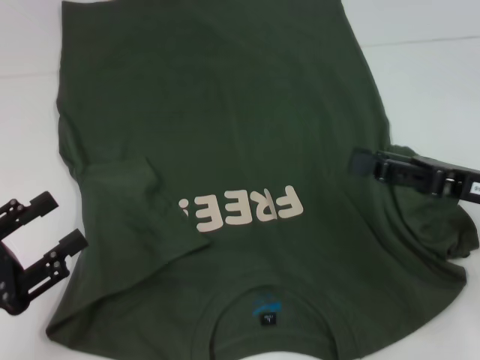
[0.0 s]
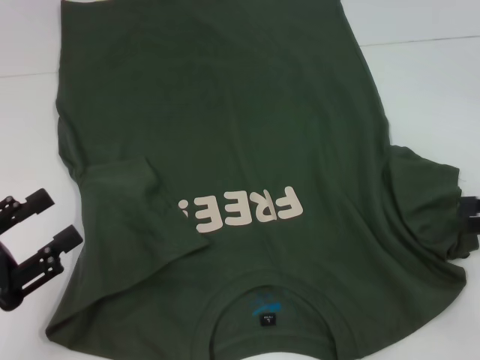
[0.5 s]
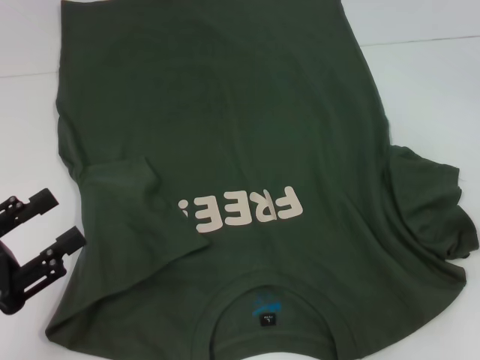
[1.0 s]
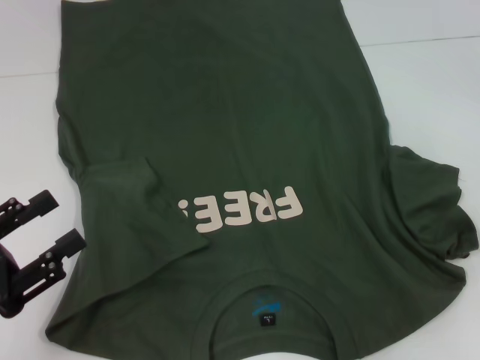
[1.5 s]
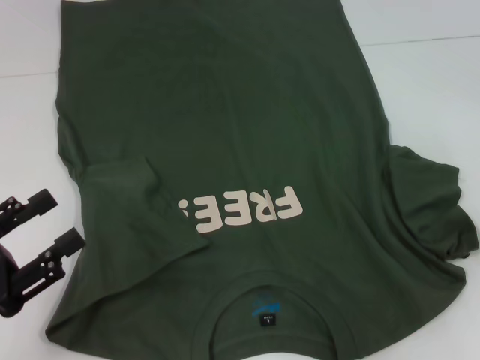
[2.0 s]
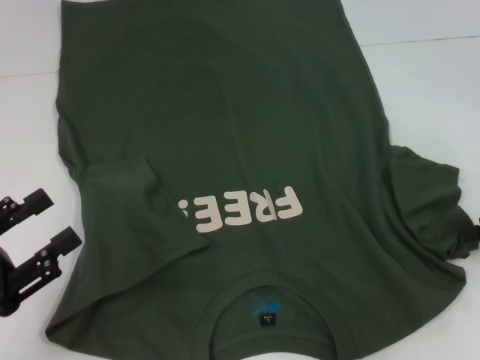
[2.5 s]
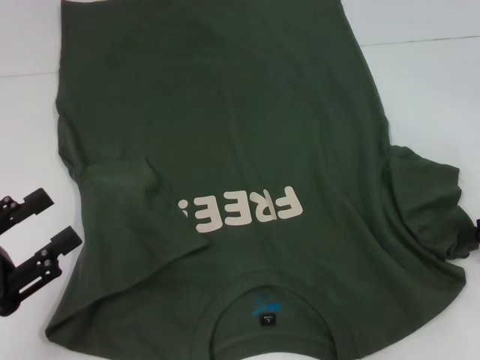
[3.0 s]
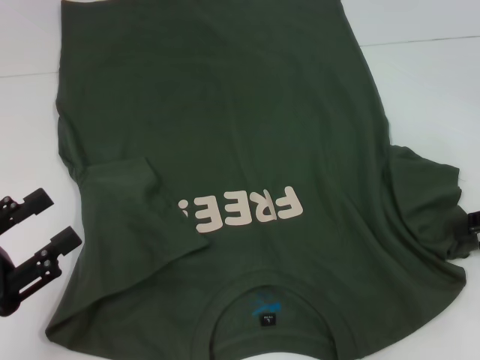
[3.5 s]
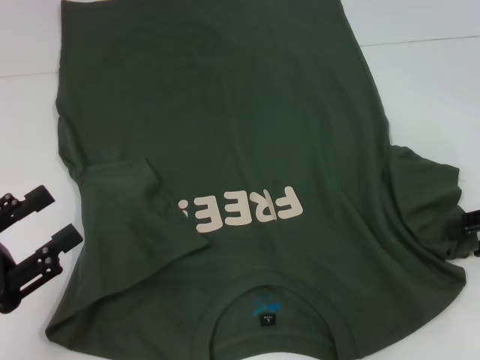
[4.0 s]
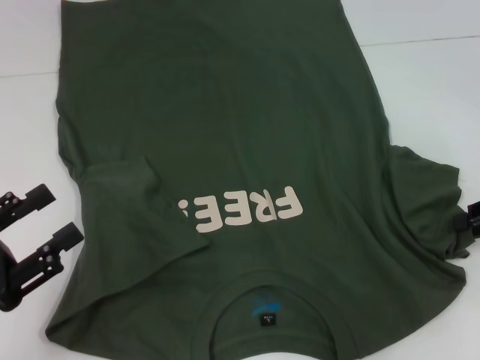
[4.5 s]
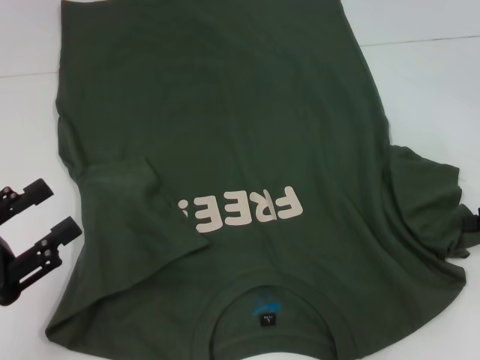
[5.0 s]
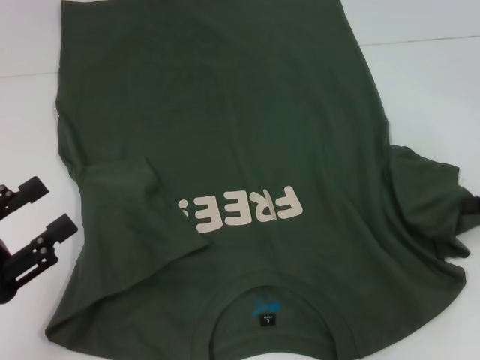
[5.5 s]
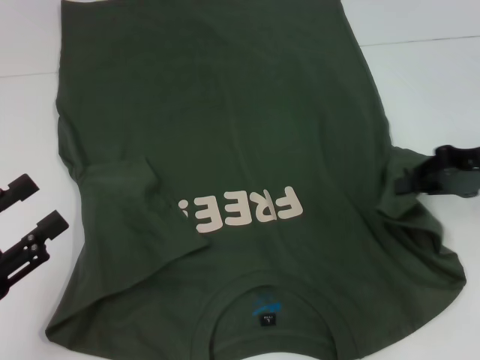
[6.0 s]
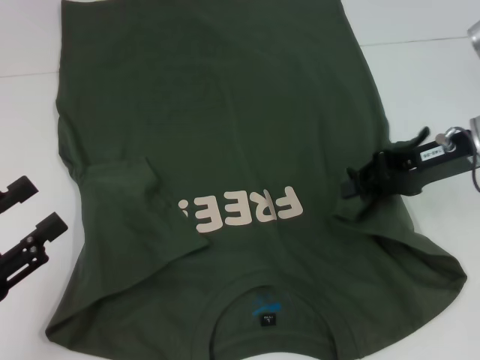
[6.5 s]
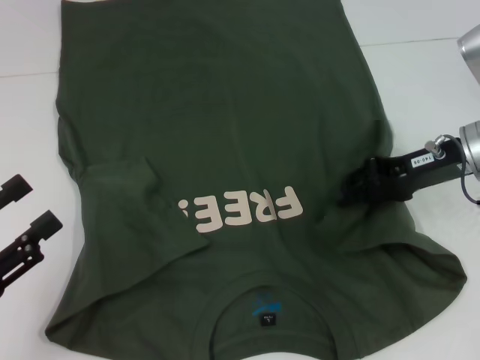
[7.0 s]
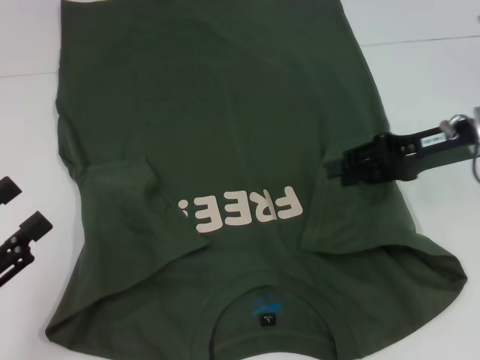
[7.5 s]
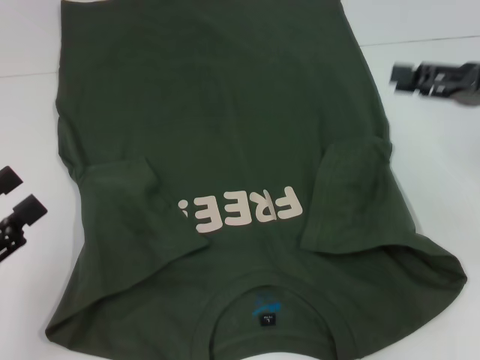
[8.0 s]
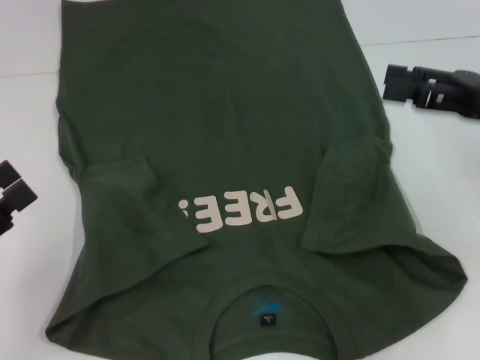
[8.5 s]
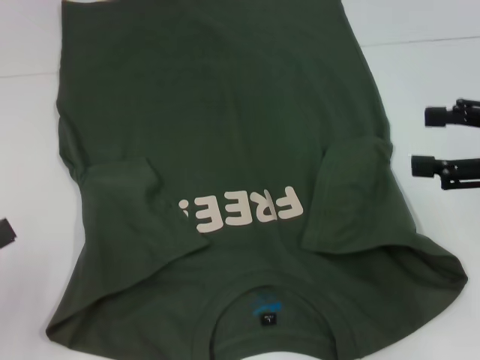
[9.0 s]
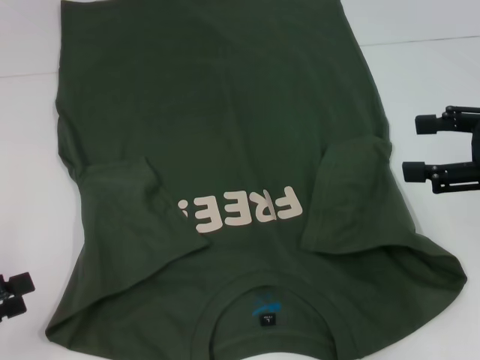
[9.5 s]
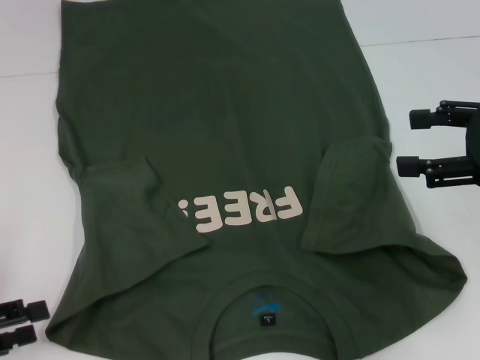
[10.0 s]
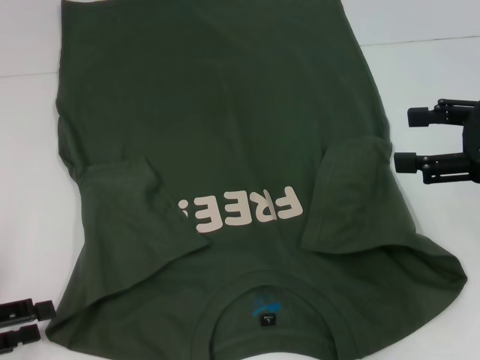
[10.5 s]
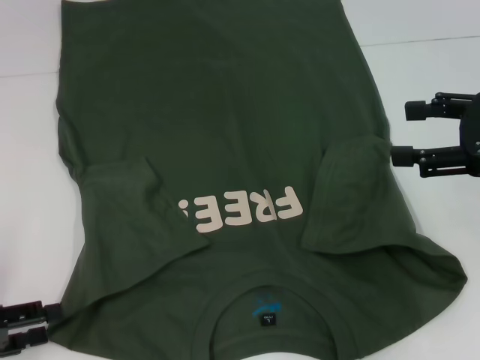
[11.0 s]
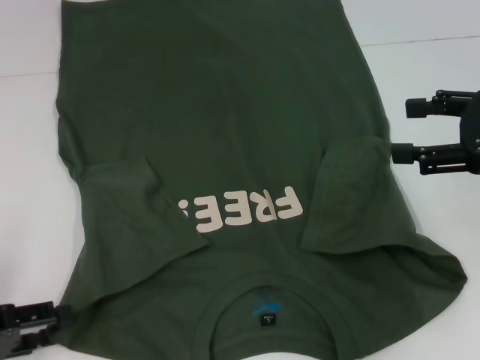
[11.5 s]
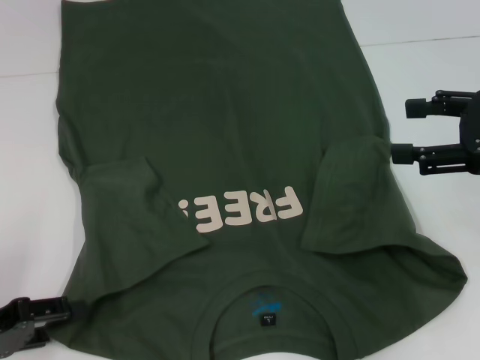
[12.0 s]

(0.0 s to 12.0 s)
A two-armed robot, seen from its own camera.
Step, 0.0 s - 7.5 s: Fold the bottom right sleeve with your right hand.
0.0 s - 2.0 s: The right gripper shifts roughly 10 cm to the right.
2.0 s - 4.0 s: The grippers make only small movements.
4.0 s - 6.0 s: The right gripper heads to the left, covering about 5 cm, and closes up.
6.0 s - 8.0 s: The right gripper opens up.
8.0 s - 10.0 s: The right gripper goes some 5 cm backward, and opens up.
10.0 s - 12.0 s: There are only small adjustments of the grippers.

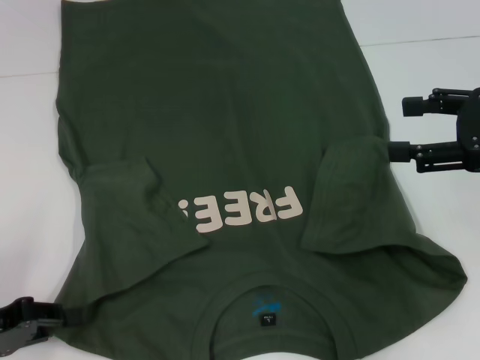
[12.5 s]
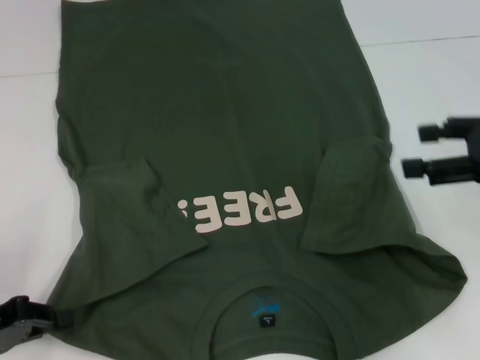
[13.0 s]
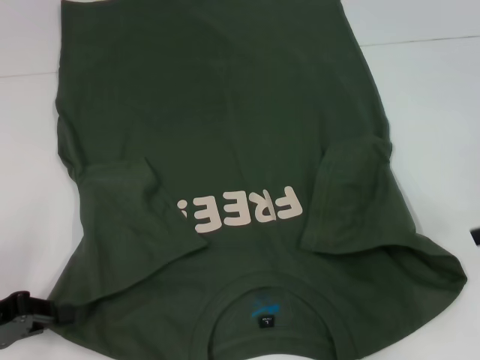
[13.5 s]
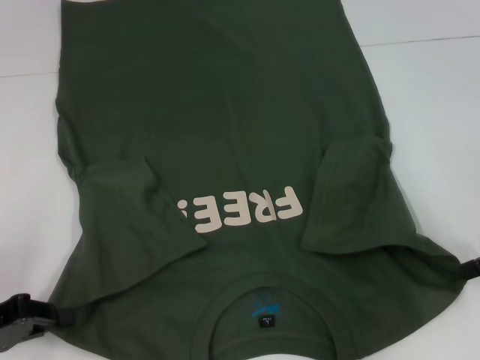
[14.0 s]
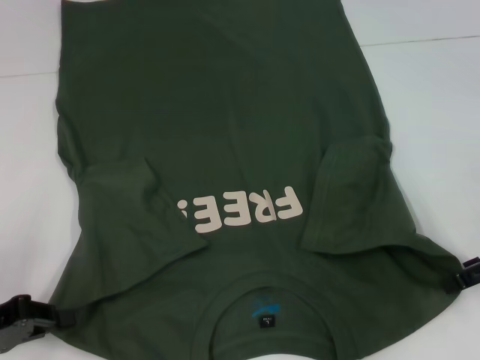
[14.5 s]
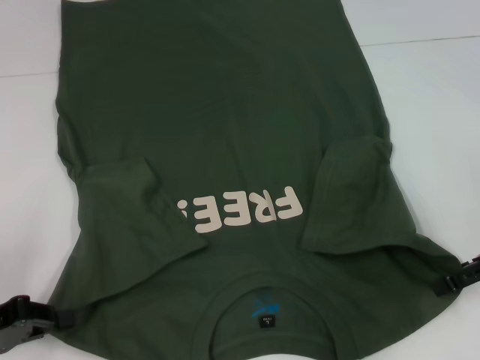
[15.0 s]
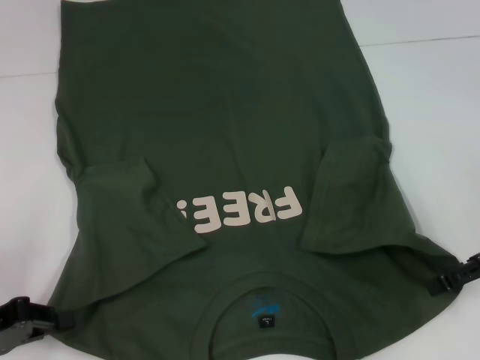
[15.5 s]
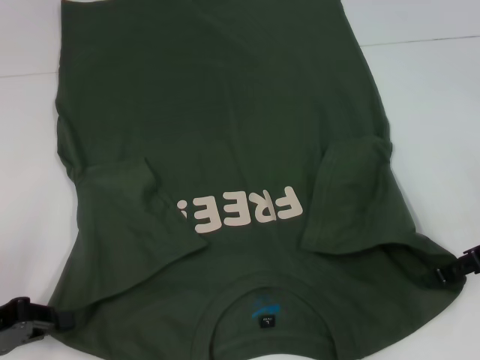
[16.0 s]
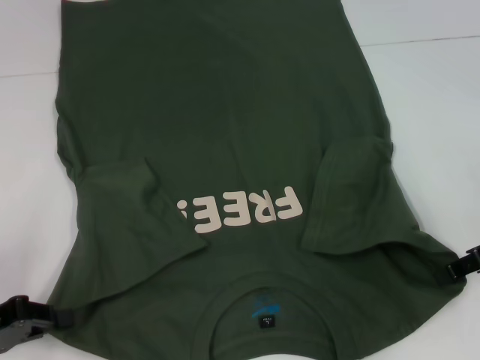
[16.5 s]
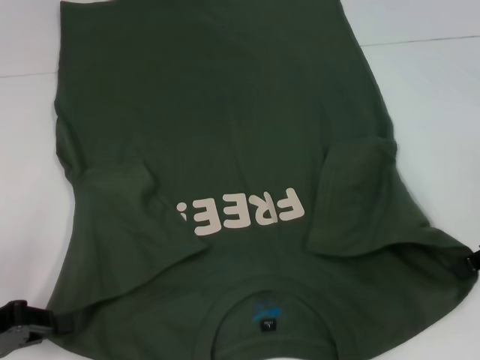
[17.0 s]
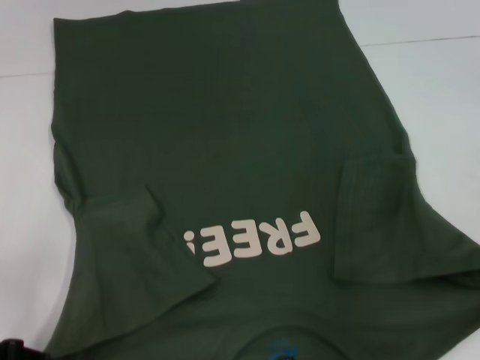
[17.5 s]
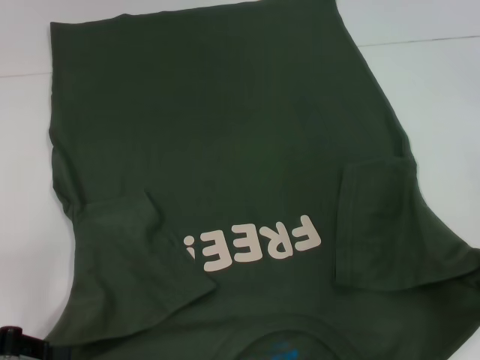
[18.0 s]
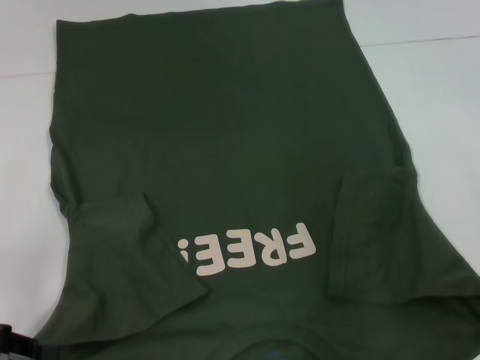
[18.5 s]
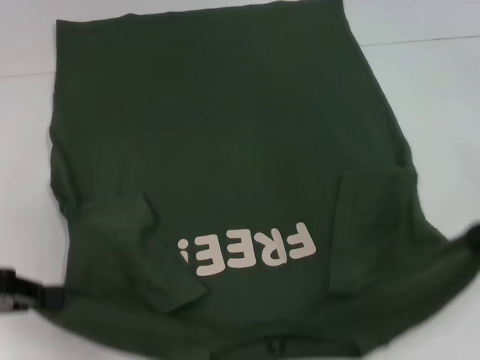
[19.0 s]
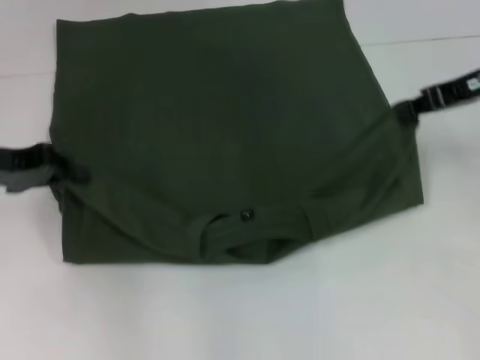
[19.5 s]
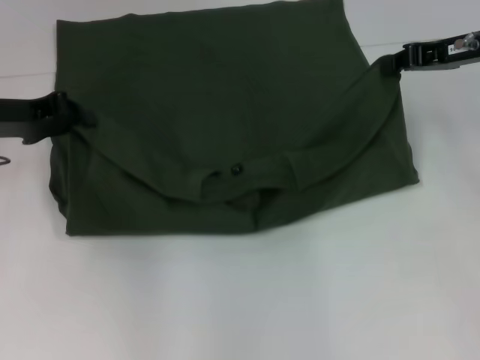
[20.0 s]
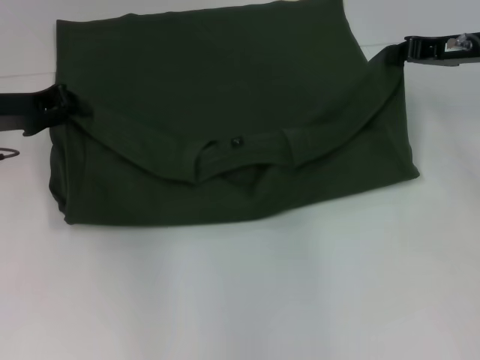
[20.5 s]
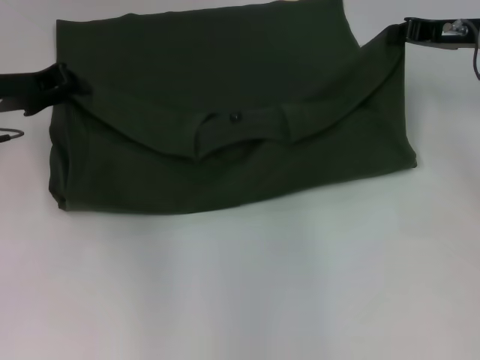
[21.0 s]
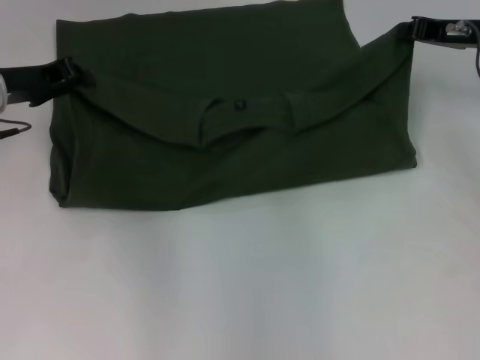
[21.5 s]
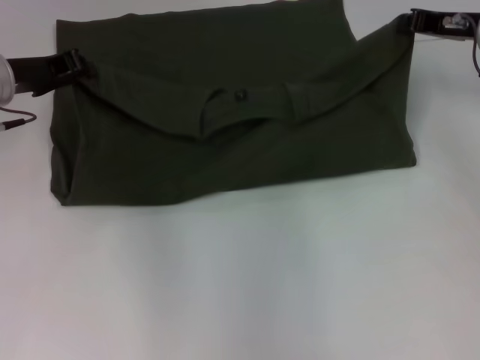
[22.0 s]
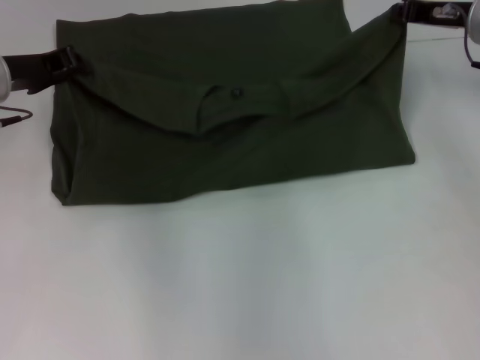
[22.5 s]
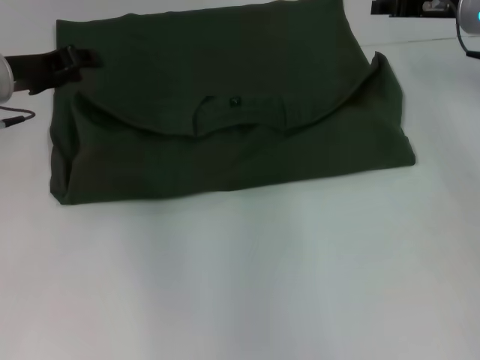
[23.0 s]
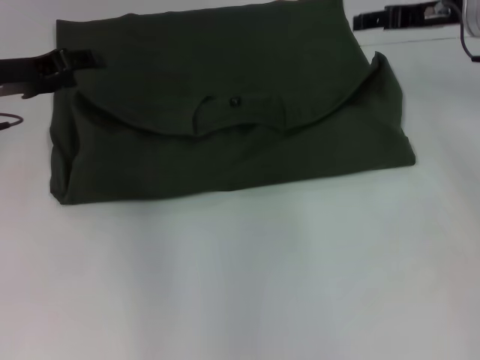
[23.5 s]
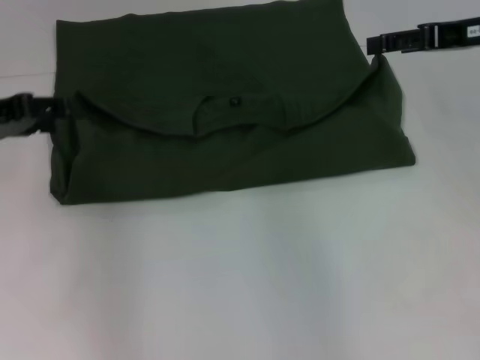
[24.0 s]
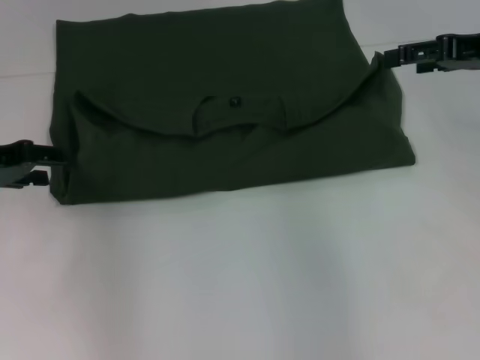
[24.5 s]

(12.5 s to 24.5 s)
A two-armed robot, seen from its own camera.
Step, 13.0 s - 16.5 s: Grab the bottom right corner with your right hand.
Step, 17.0 s - 23.0 s: Fold the clothes with your left hand.
Step, 17.0 s - 23.0 s: Fold the clothes with your right hand.
12.5 s - 14.5 s: The right gripper moves downward, some 5 cm. Meanwhile the left gripper closes its fingers.
14.5 s - 16.5 s: The right gripper closes up.
16.5 s - 18.5 s: The right gripper closes up.
18.5 s - 20.5 s: The left gripper is displaced forward and to the right by some 20 cm. The right gripper moves forward, some 15 cm.
20.5 s - 22.5 s: There are only small adjustments of the grippers.
22.5 s - 24.5 s: The right gripper travels backward by roughly 5 cm, and opens. Meanwhile the left gripper moves backward and to the left, about 10 cm, and opens its fingers.

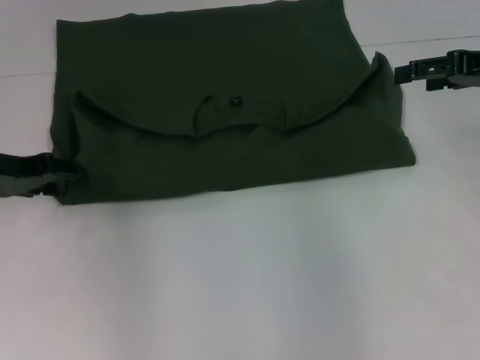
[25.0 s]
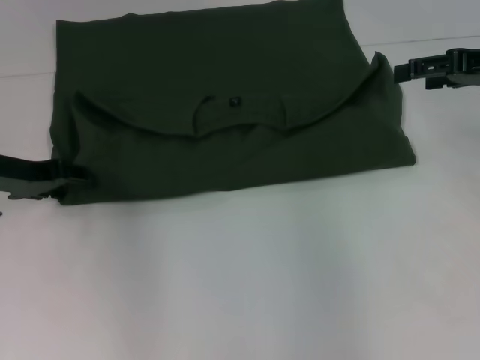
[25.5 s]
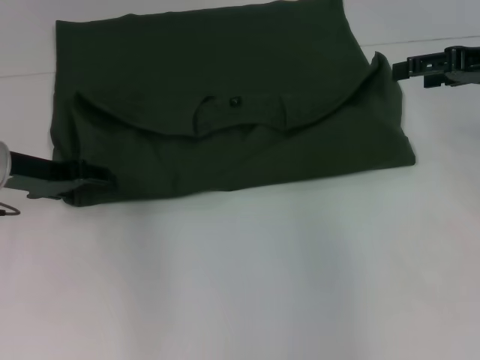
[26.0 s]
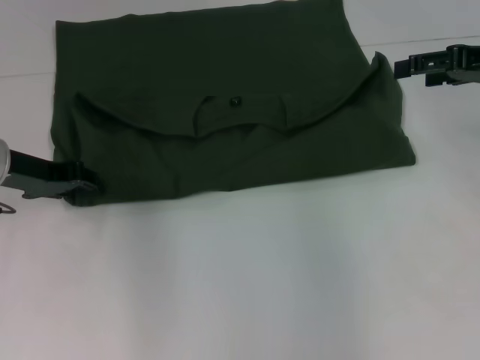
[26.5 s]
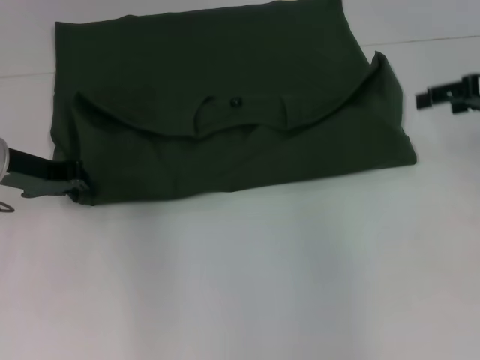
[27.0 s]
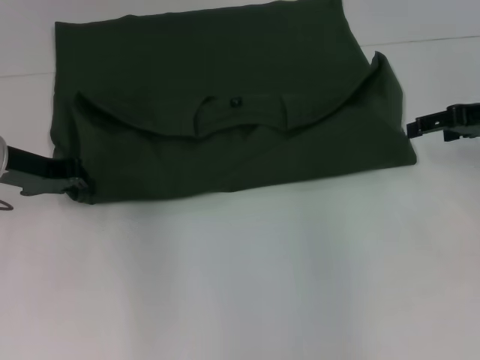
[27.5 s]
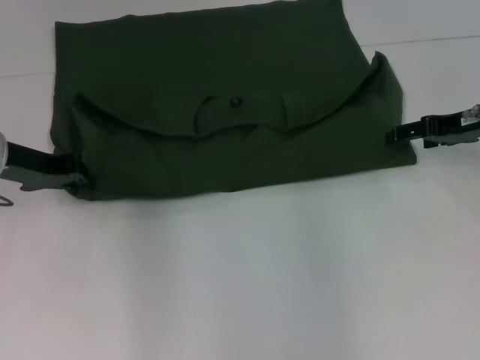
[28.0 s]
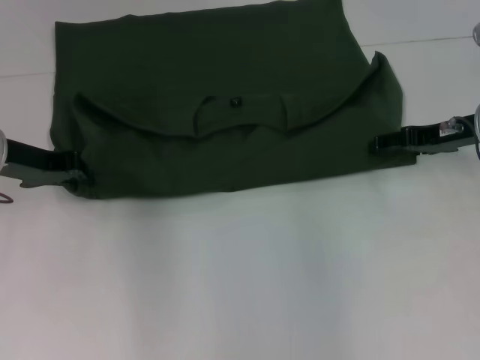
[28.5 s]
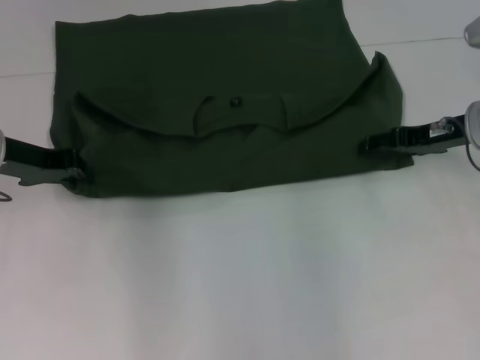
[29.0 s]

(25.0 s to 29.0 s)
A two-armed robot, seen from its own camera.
25.0 s - 27.0 s: The left gripper closes its fingers.
27.0 s - 29.0 s: The right gripper heads downward and to the left, covering some 10 cm.
